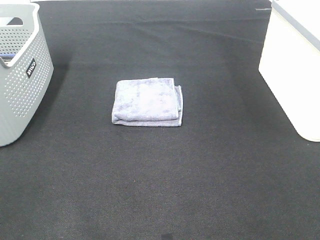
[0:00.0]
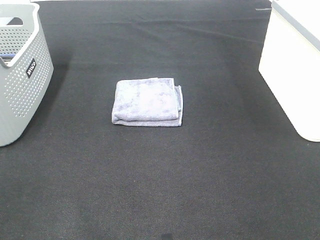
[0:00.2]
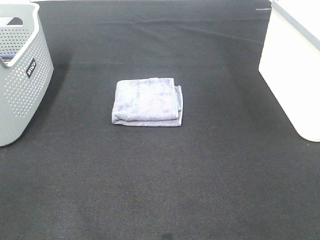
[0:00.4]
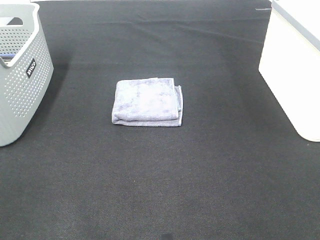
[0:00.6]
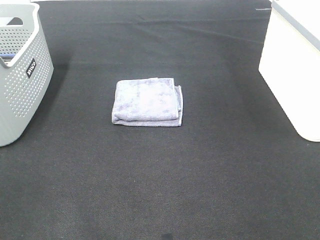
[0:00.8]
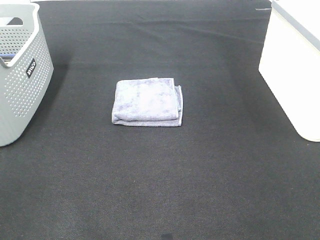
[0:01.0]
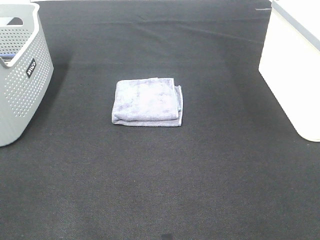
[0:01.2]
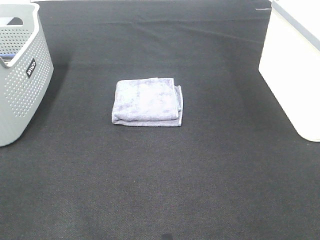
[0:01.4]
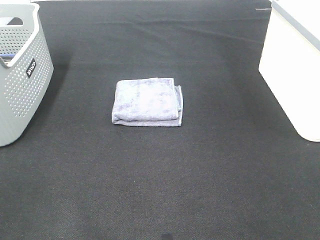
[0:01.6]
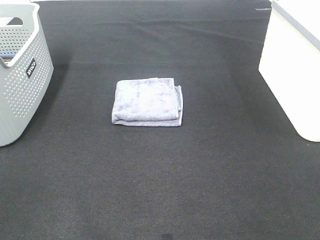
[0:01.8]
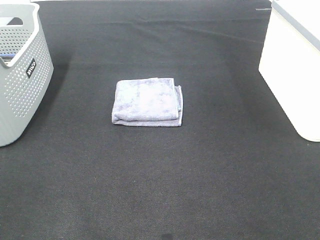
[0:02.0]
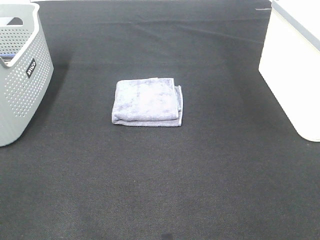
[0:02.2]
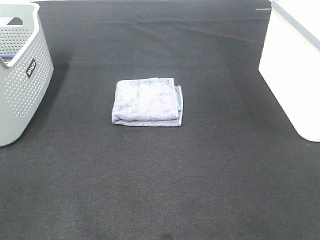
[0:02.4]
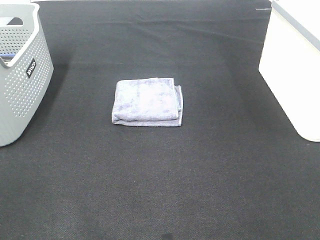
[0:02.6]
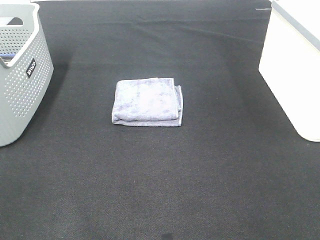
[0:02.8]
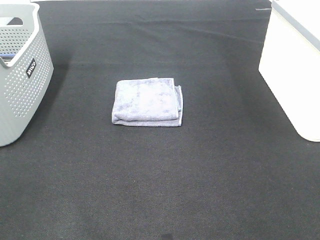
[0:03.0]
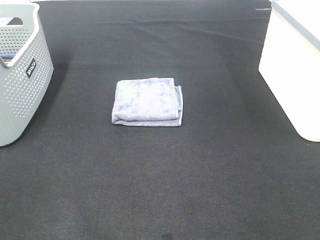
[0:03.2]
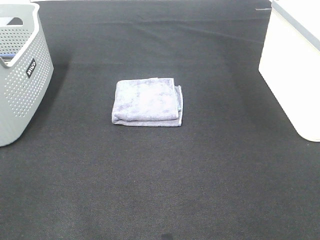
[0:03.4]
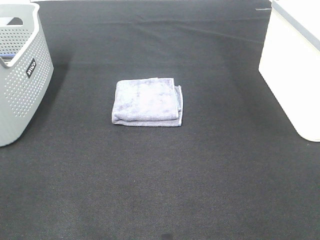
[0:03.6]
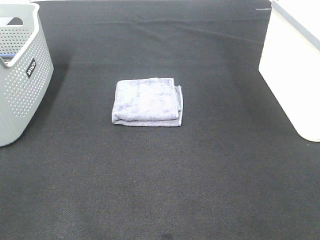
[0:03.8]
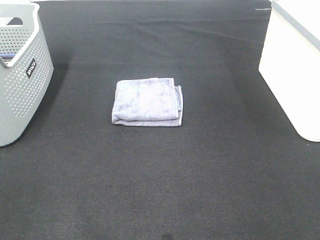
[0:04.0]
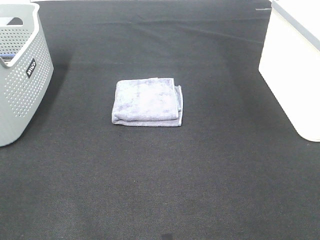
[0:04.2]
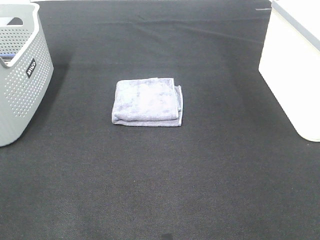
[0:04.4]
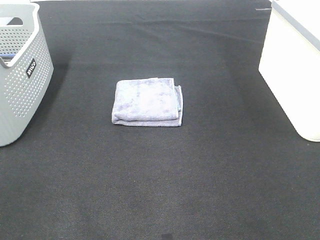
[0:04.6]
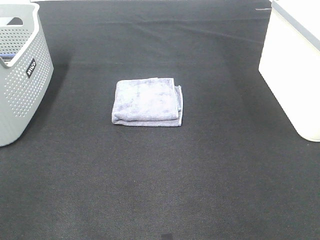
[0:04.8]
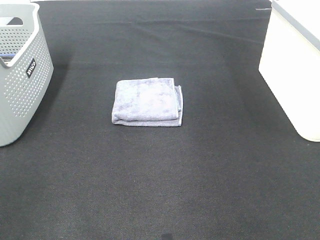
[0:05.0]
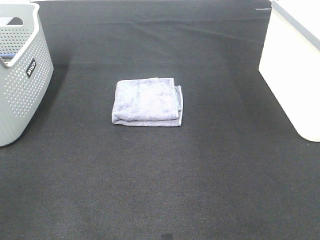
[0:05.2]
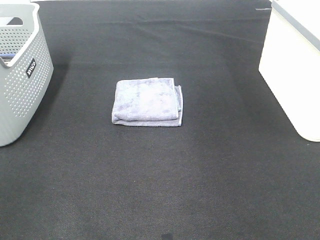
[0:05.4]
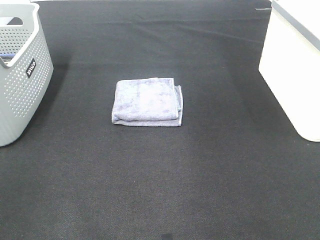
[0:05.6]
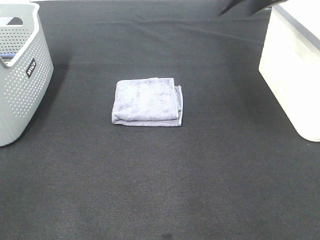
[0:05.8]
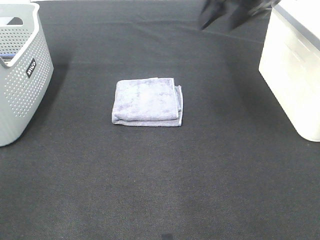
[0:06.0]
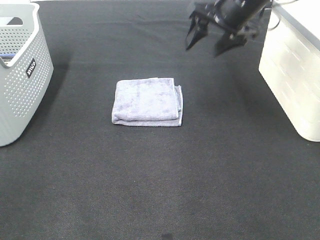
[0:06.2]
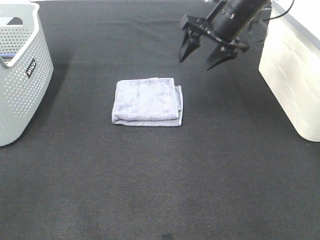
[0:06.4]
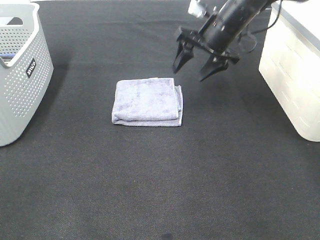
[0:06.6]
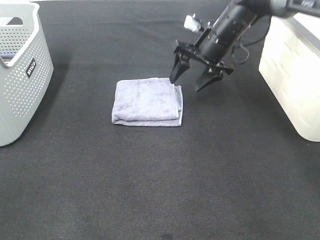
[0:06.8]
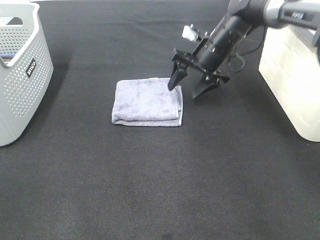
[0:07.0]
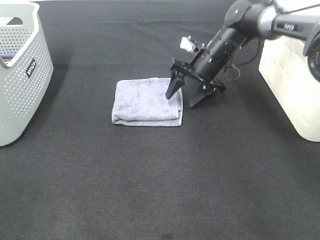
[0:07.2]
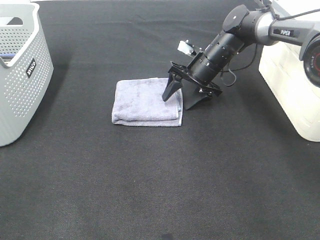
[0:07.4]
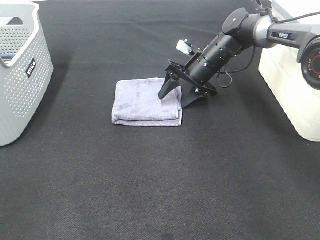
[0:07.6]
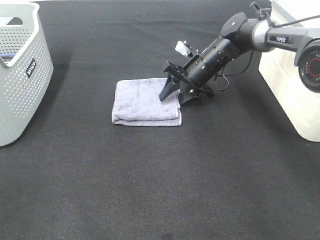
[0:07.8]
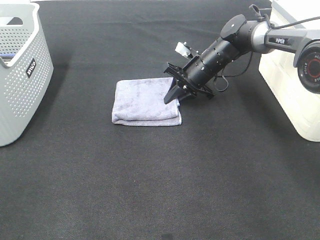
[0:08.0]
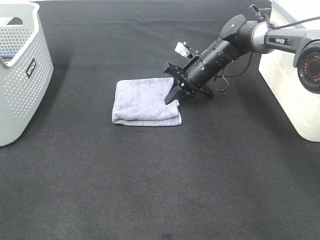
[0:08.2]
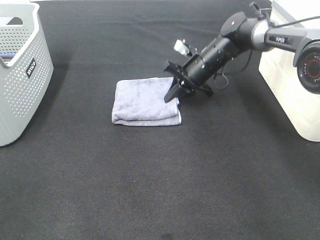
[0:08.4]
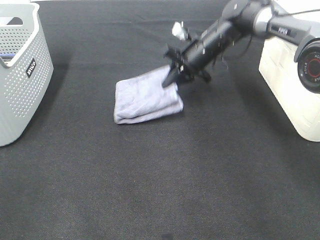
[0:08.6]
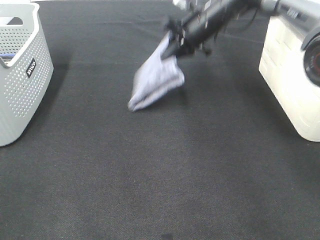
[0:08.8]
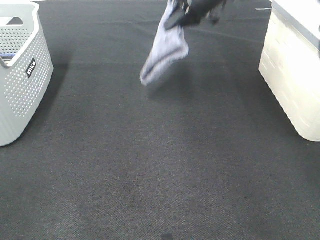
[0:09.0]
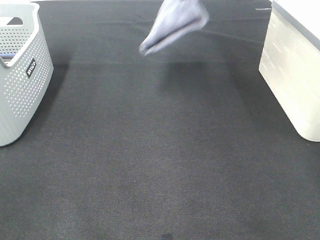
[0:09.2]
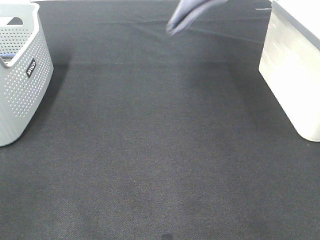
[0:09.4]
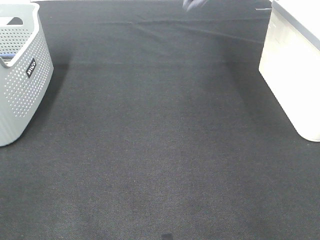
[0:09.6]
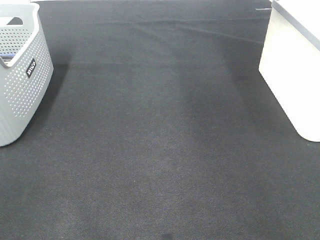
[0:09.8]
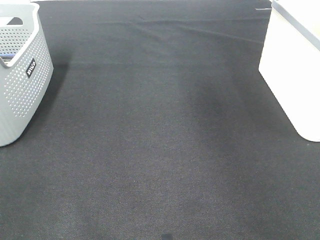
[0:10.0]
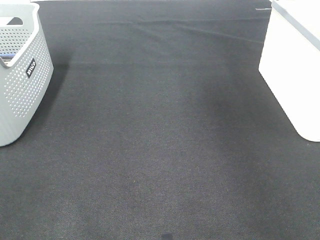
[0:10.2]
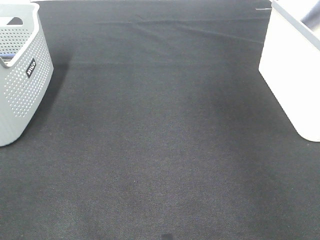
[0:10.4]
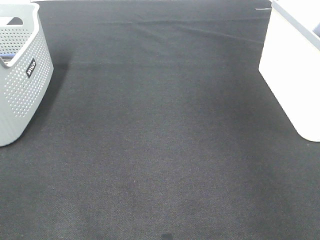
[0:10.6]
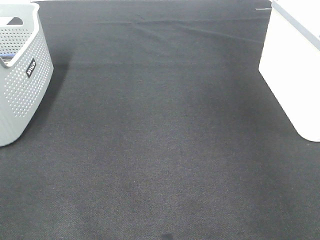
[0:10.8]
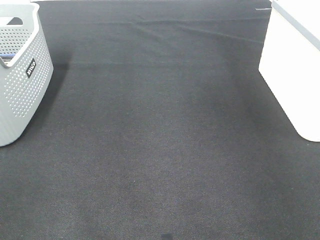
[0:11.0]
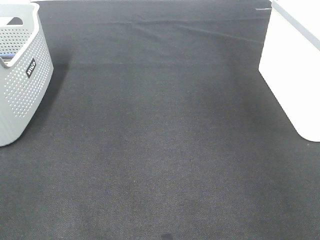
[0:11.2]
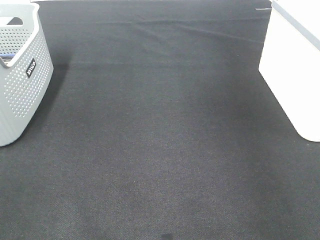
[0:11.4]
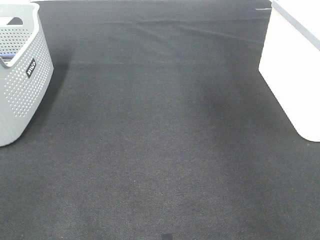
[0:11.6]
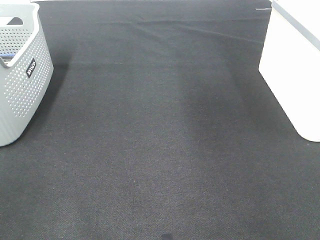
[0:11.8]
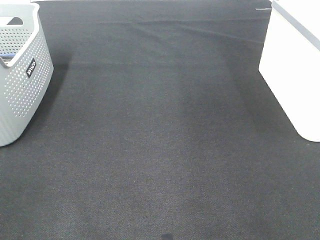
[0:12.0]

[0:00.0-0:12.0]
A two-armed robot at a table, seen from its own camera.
Step, 0:00.0 to 0:08.2: Right hand: grab the folded grey towel.
Step, 0:08.4 to 0:11.2: Right hand: place the grey towel in right basket.
0:00.0 to 0:03.0: Neither gripper changes place.
0:04.4 to 0:06.0: The right gripper goes approximately 40 cm forward.
0:06.0 to 0:07.6: The right gripper goes approximately 20 cm downward.
0:07.6 to 0:09.0: The right gripper goes about 20 cm upward, and closes.
0:09.0 to 0:10.4: The right gripper heads to the right, covering some 25 cm.

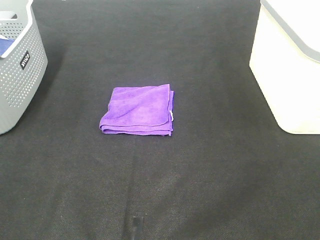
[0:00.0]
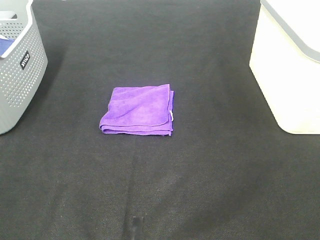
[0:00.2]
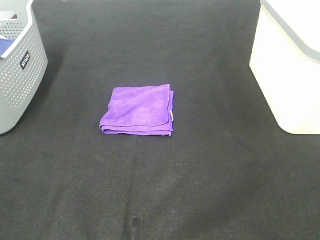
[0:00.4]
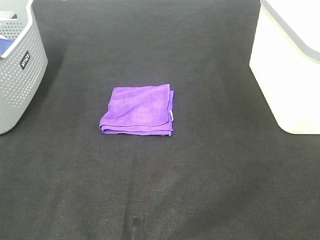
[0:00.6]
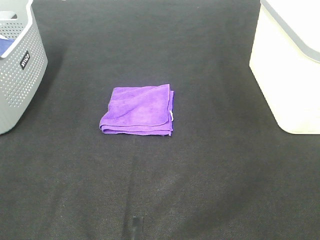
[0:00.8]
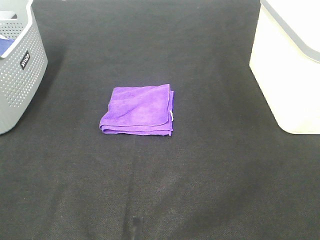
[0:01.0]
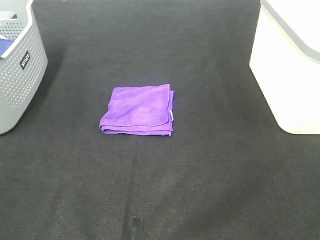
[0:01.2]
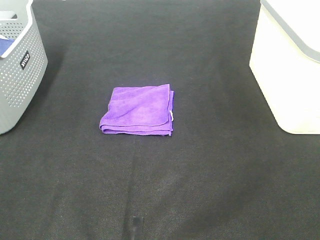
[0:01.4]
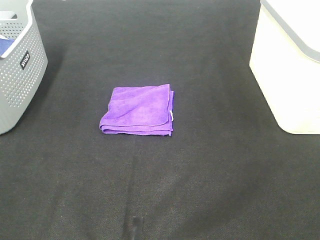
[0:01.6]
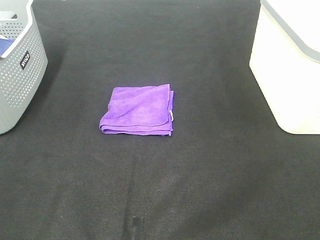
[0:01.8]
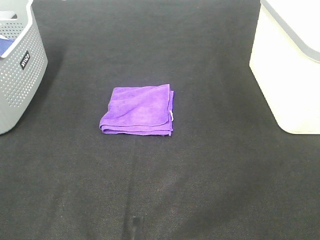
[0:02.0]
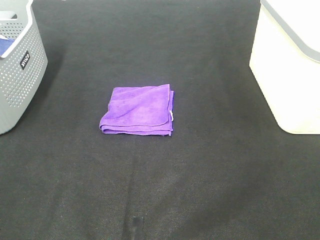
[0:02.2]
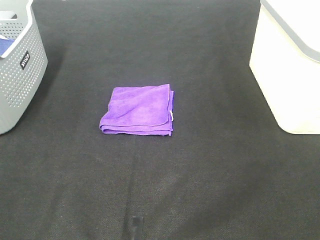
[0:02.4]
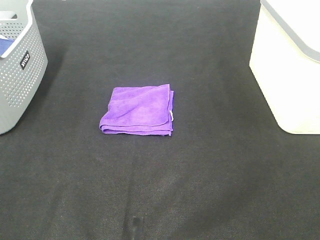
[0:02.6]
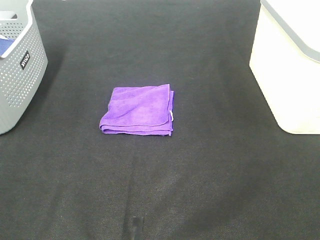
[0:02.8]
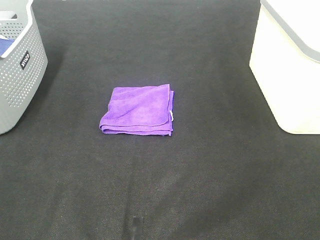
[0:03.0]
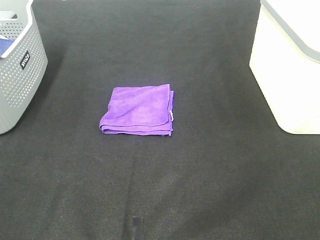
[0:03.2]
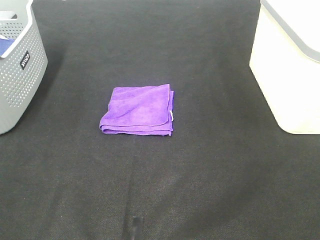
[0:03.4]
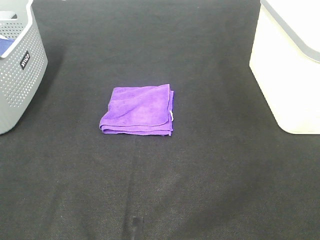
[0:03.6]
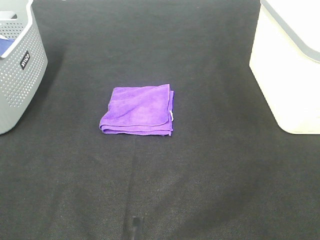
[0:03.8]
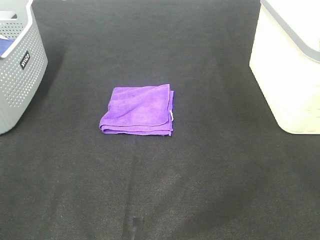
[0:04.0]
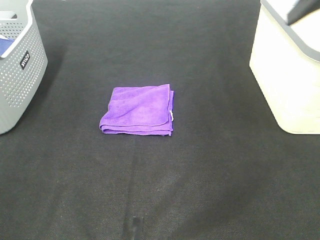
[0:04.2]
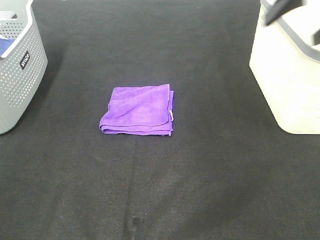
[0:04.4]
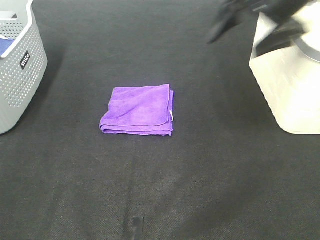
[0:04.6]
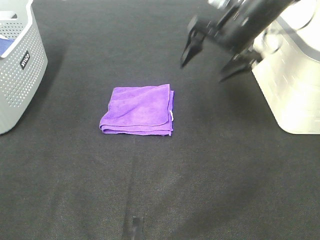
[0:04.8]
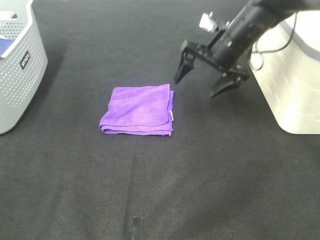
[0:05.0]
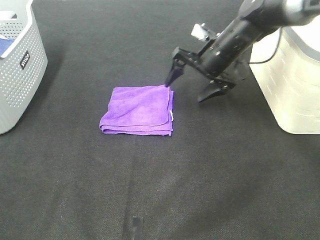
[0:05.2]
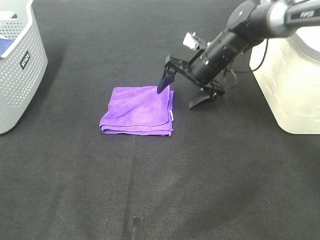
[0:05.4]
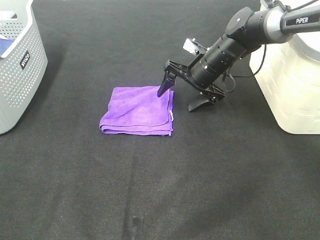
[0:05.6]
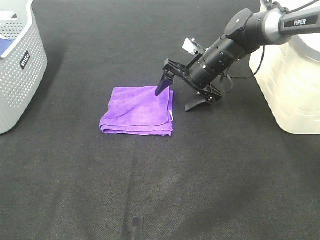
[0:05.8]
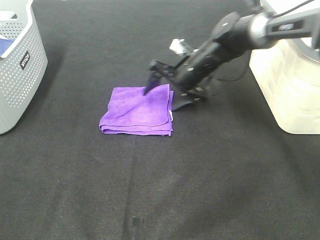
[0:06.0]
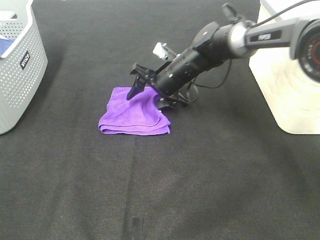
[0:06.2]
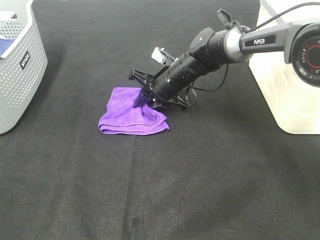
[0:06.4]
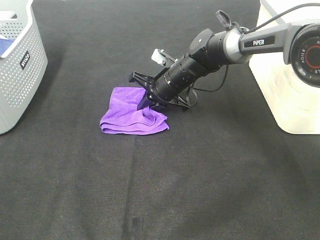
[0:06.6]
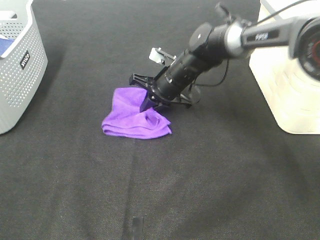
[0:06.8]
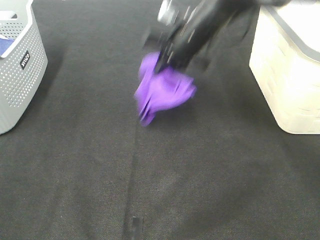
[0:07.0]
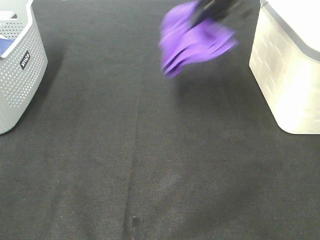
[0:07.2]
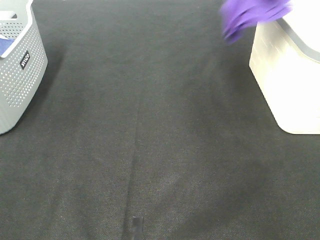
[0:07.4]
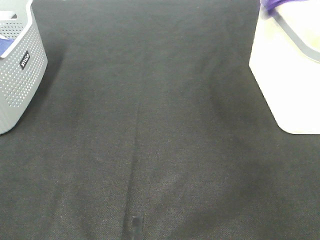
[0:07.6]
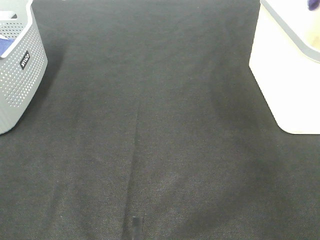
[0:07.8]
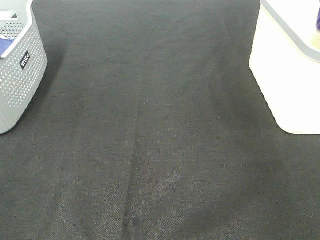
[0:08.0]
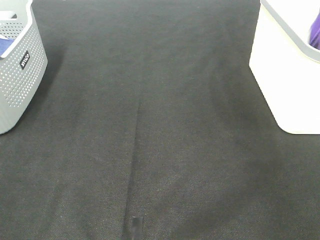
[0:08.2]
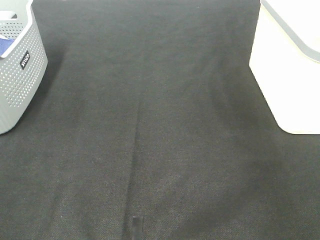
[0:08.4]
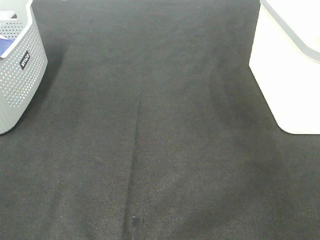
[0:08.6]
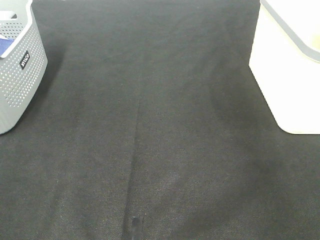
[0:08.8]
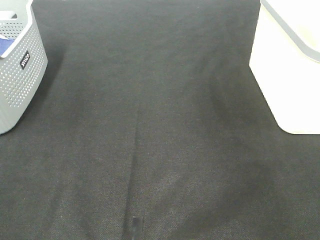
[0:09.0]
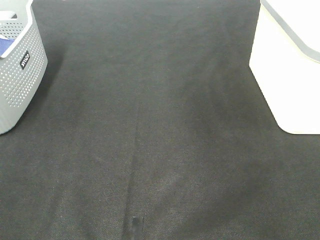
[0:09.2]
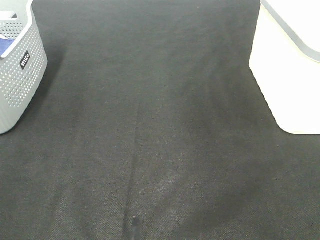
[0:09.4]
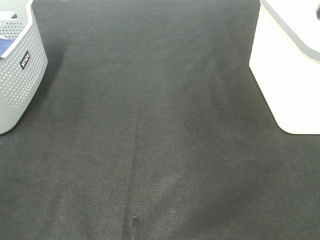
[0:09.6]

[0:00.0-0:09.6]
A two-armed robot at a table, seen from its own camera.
Step, 0:00.0 to 0:06.4: Right hand: grab the folded purple towel.
Step, 0:06.6 to 0:08.2: Right hand: place the purple towel in right basket.
0:00.0 to 0:03.2: Both grippers stay put.
0:03.2 to 0:04.8: The right gripper moves forward, about 40 cm.
0:04.8 to 0:06.4: The right gripper moves downward and to the left, roughly 20 cm, and closes.
0:06.4 to 0:08.0: The right gripper moves to the right and upward, about 50 cm.

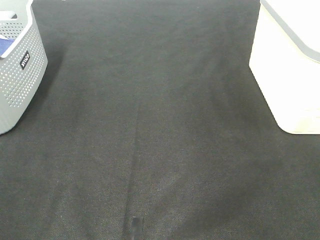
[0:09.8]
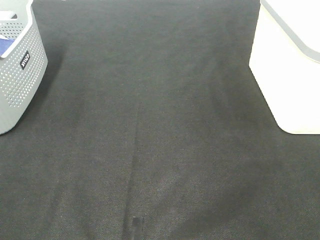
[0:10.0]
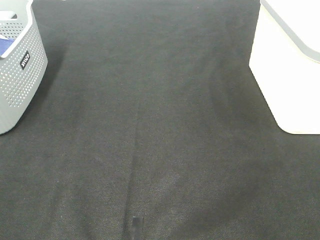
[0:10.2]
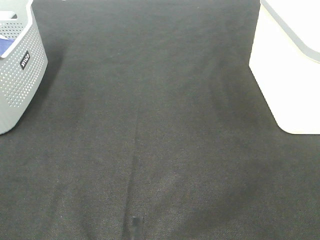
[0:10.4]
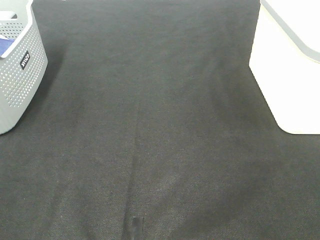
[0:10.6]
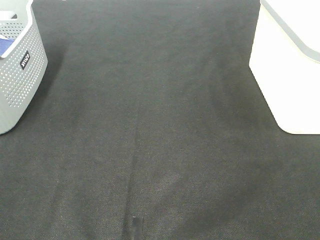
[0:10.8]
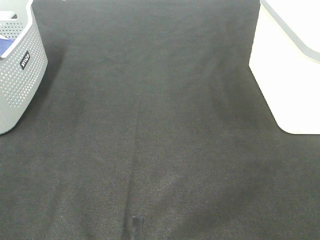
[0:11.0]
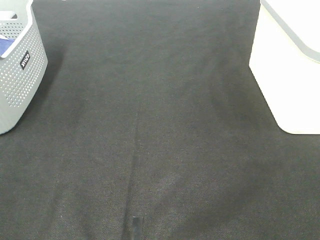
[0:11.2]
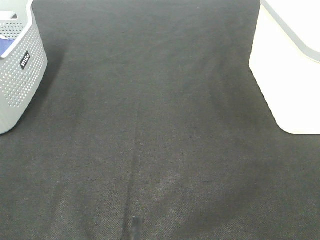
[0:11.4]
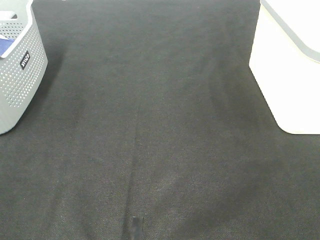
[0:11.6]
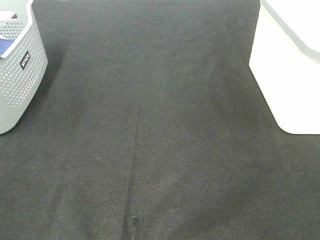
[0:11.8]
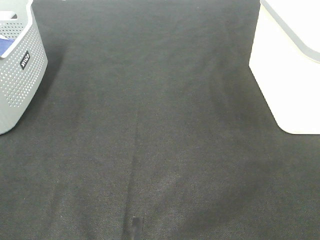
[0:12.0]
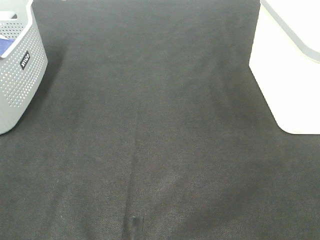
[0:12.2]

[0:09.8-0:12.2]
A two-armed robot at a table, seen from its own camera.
0:11.0 to 0:12.2: The two grippers keep their place.
